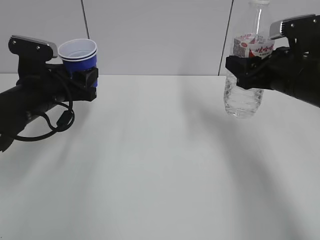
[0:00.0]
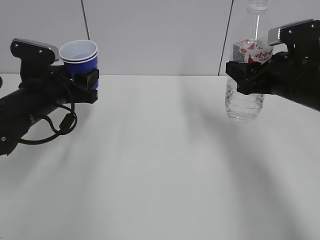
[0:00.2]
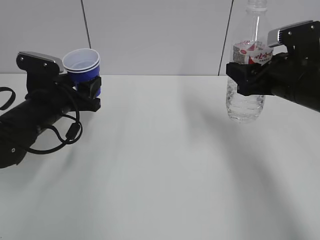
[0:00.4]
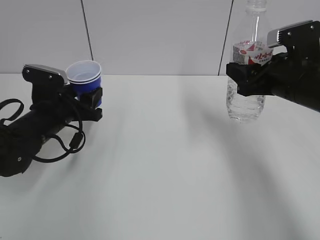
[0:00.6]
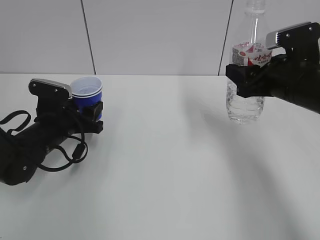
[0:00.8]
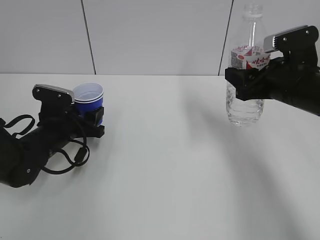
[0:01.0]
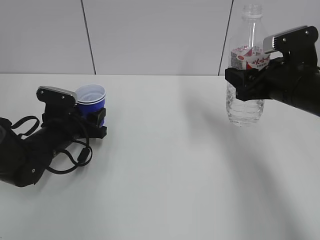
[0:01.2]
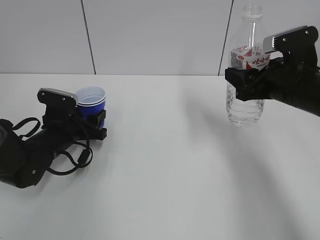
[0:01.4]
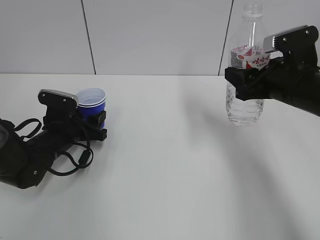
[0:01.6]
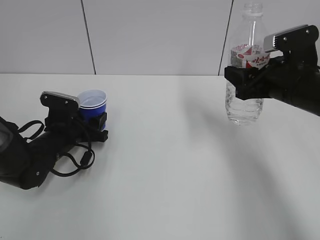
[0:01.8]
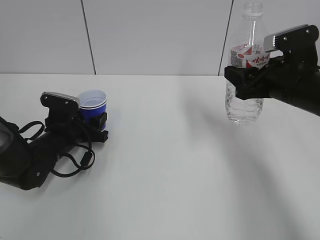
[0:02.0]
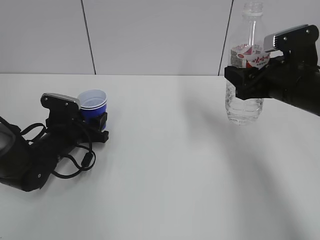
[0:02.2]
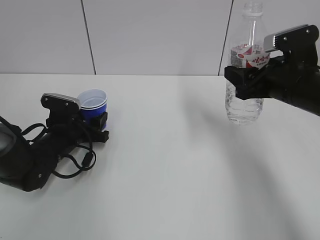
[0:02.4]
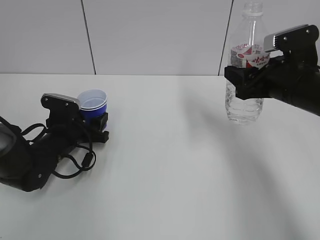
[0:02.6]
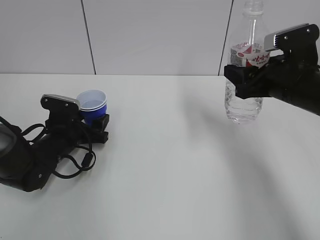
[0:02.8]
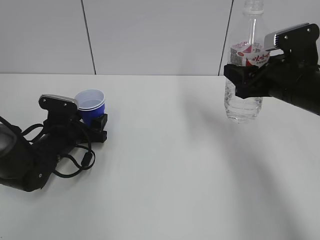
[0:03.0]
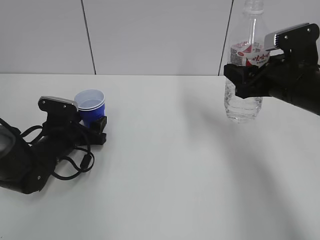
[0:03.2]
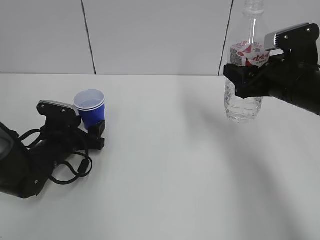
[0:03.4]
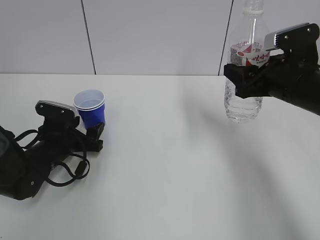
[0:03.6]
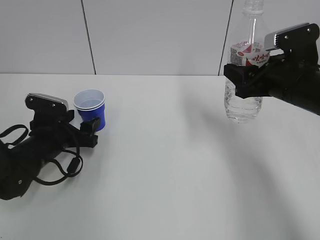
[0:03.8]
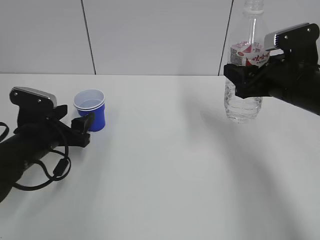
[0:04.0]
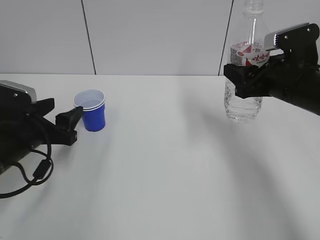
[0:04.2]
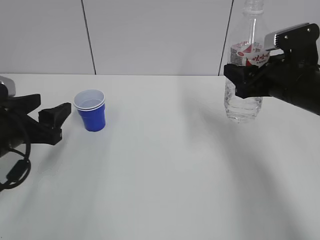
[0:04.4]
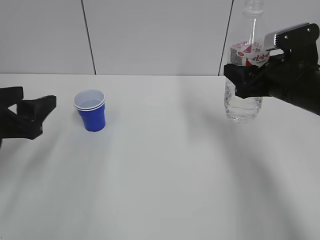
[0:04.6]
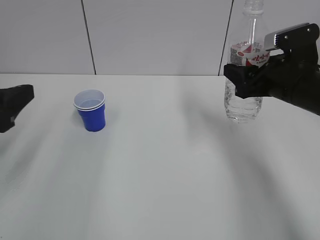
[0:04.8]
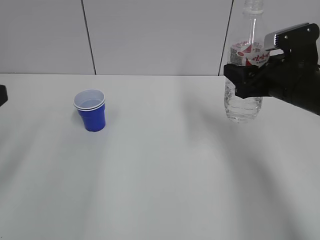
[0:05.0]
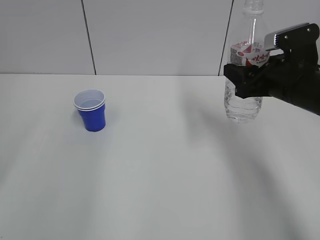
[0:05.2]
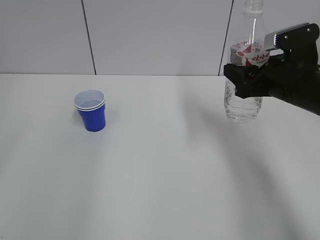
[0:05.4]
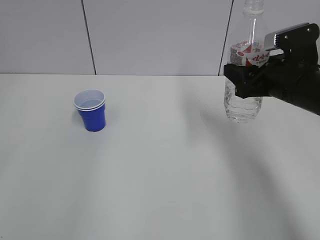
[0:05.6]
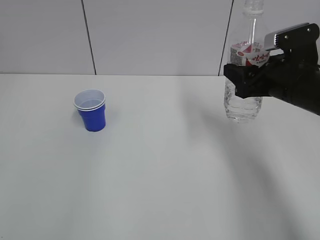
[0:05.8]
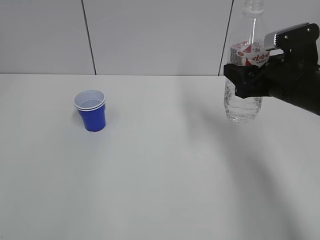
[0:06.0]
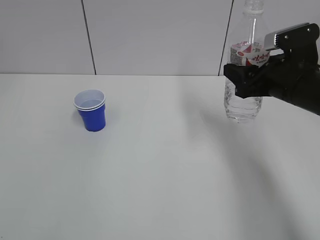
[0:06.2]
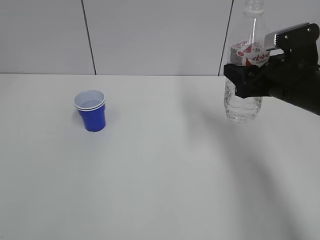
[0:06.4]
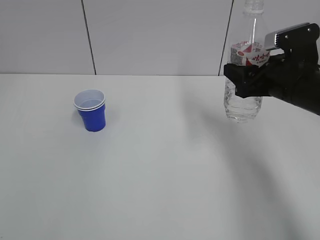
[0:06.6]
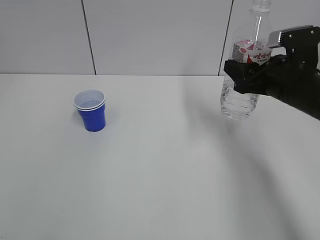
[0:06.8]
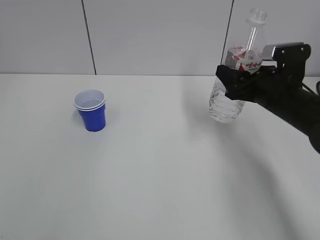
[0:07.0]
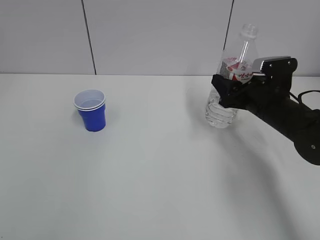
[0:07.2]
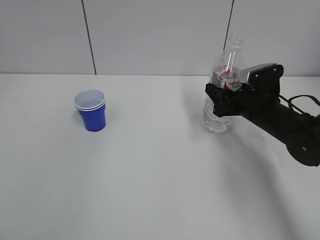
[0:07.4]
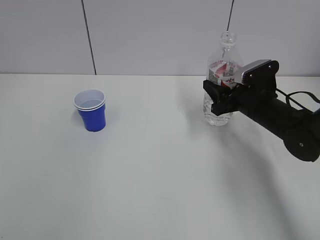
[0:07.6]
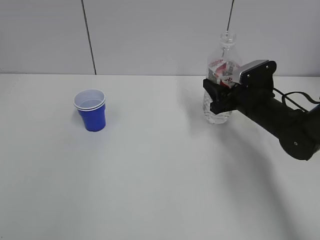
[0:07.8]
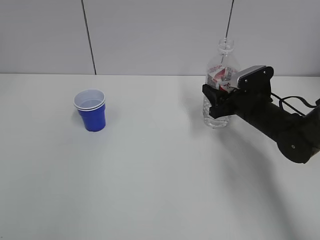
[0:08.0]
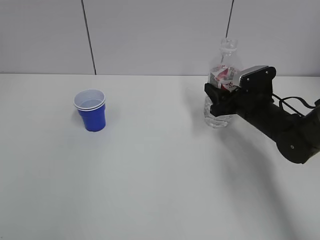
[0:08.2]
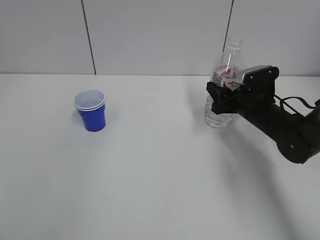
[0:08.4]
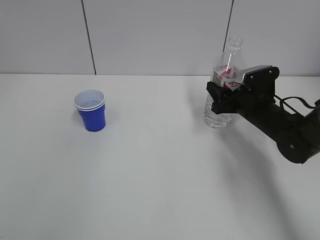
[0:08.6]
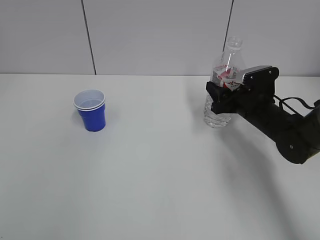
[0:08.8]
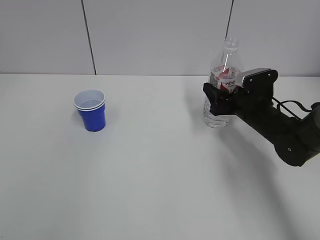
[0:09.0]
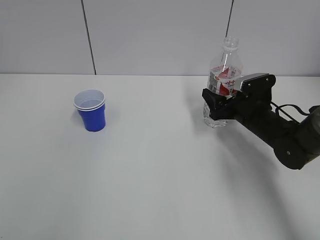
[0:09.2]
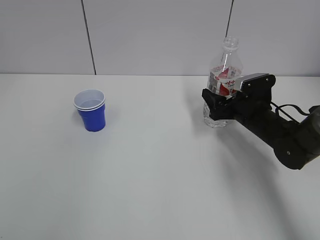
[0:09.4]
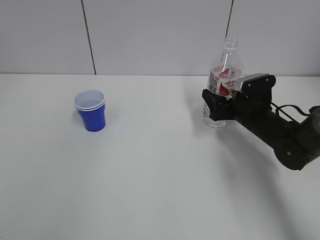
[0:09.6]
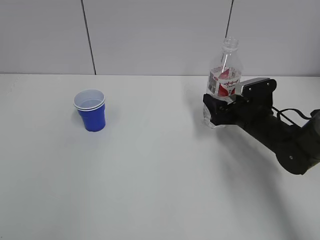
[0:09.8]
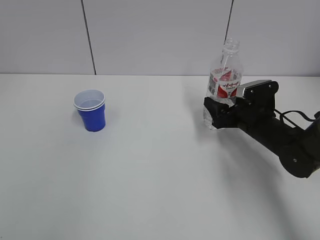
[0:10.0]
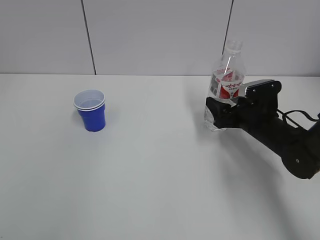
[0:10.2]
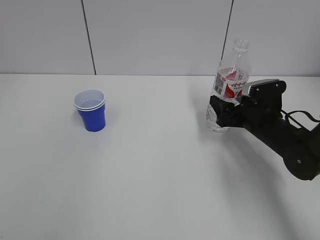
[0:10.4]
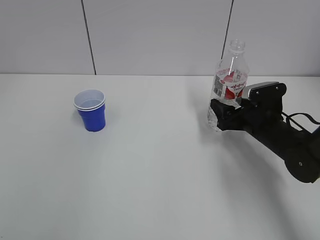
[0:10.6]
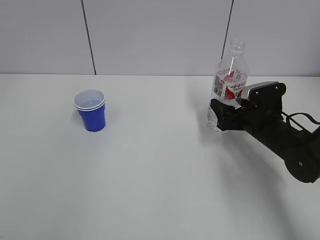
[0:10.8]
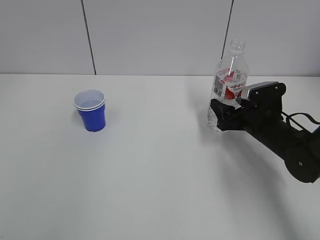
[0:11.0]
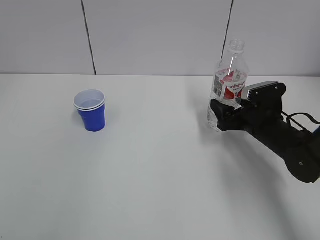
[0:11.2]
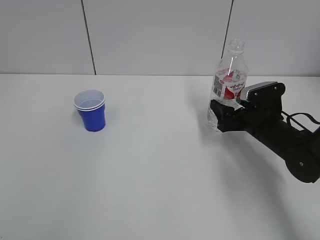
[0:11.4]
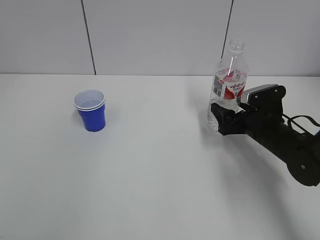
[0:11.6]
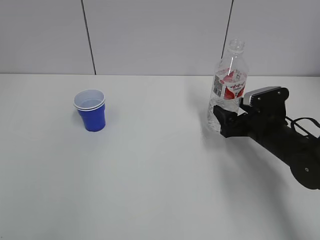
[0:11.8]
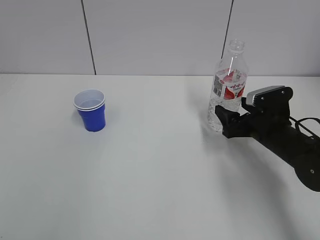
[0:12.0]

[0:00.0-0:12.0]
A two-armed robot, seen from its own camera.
Step, 0:00.0 to 0:03.0: Place the paper cup with the left hand.
Step, 0:03.2 to 0:11.4: Place the water bottle with the right hand.
0:00.0 to 0:01.6: The left gripper goes some 10 cm downward.
0:01.6 to 0:03.0: The left gripper opens.
0:03.0 to 0:04.4: The left gripper travels upward and backward by some 15 cm.
0:04.4 to 0:06.0: The left gripper heads backward and upward, covering roughly 25 cm.
0:06.0 to 0:07.6: The right gripper heads downward and forward, covering some 10 cm.
0:07.6 to 0:09.0: The right gripper opens up.
0:09.0 to 0:12.0: The grippers make only small movements.

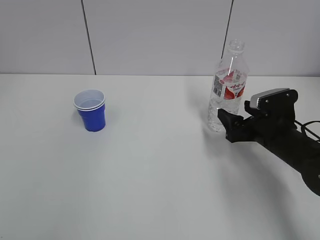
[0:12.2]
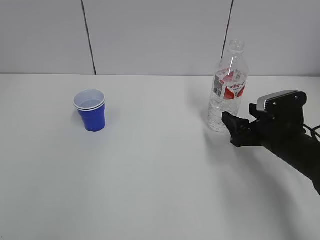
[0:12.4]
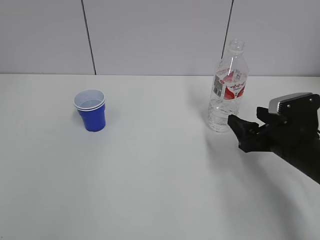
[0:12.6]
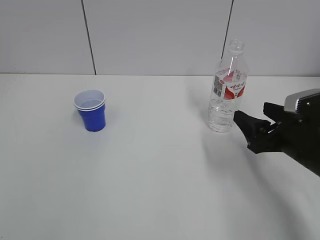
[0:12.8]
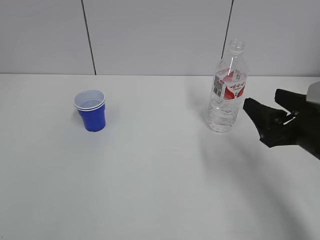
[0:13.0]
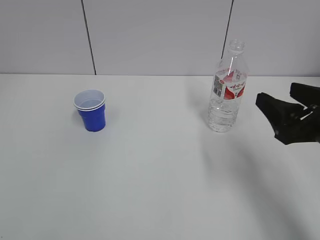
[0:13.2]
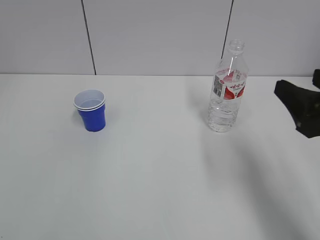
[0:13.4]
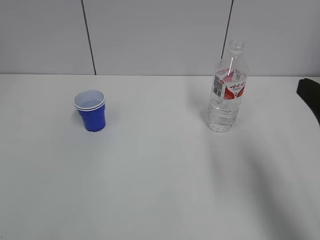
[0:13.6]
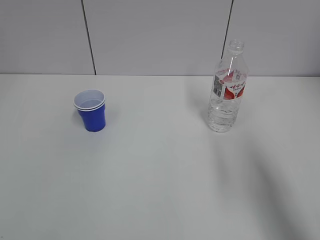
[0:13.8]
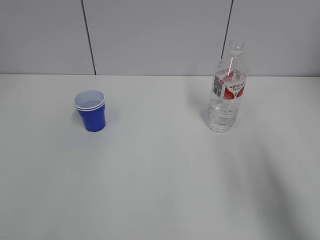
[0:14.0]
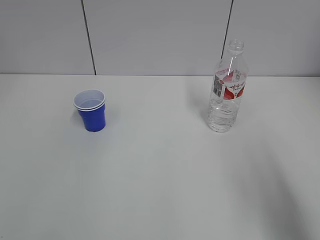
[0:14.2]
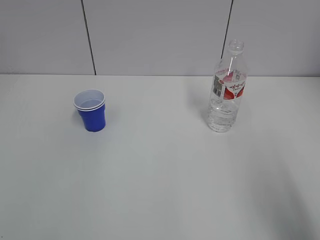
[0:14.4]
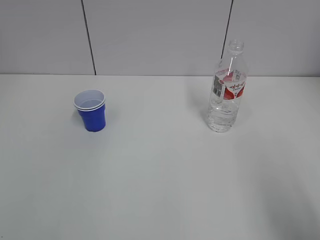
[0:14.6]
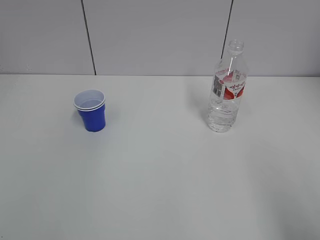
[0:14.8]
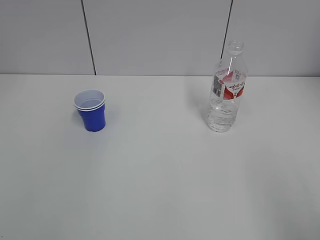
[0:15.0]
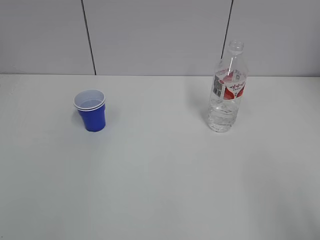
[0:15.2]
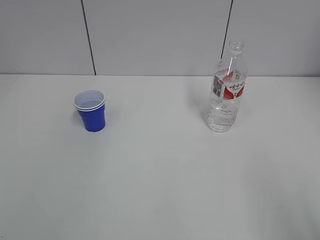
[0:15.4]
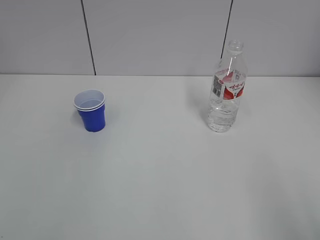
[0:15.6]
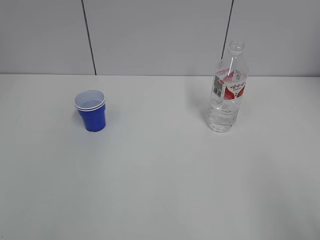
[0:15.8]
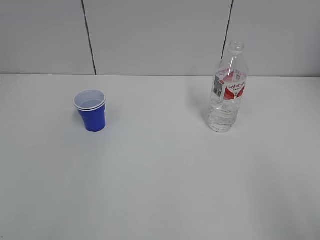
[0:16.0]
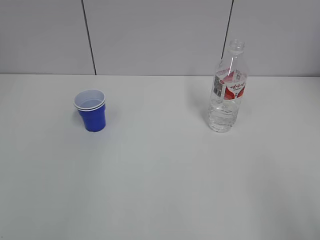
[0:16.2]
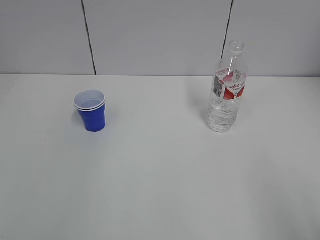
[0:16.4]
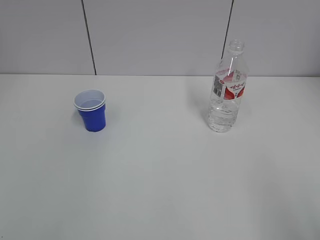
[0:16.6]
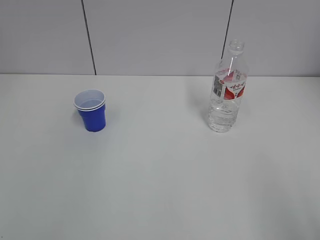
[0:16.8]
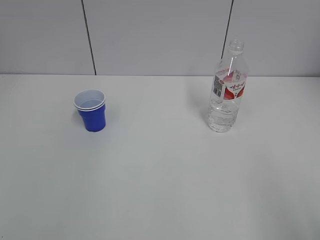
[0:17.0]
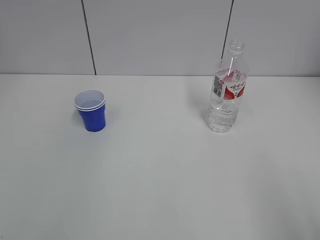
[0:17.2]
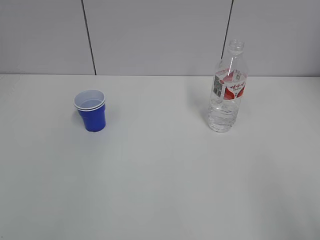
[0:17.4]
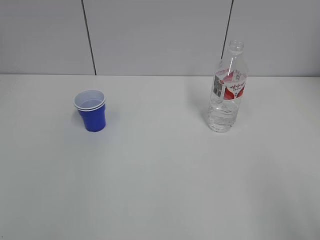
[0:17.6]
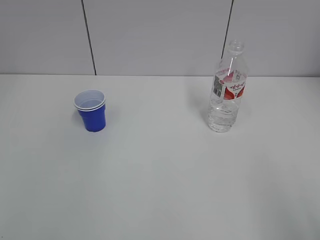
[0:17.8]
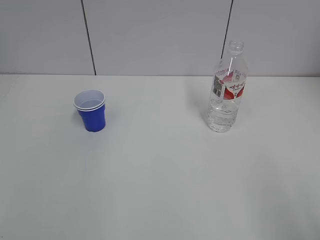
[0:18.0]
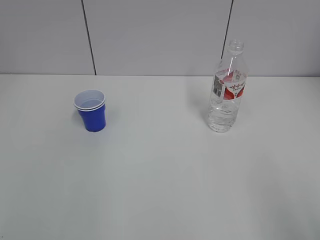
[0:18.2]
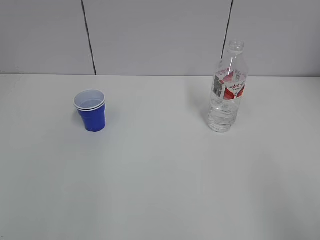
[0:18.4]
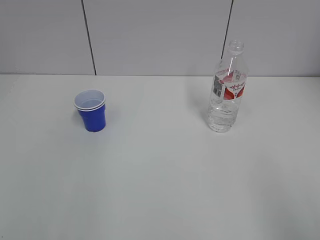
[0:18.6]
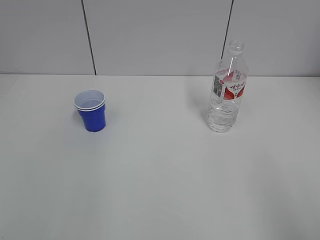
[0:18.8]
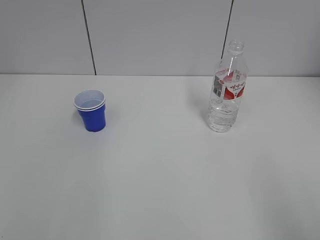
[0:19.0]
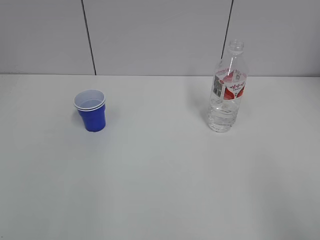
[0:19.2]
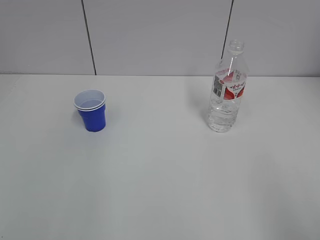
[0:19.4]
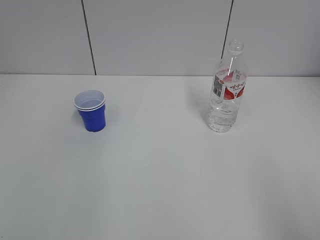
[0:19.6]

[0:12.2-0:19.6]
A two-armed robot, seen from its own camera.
0:12.2 to 0:13.6: The right gripper shifts about 25 cm upward and backward.
0:13.6 to 0:15.2: The right gripper travels backward by about 20 cm.
0:18.2 to 0:19.6: The two grippers keep their place.

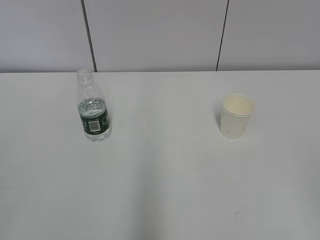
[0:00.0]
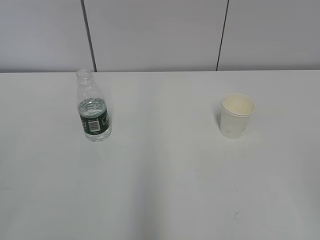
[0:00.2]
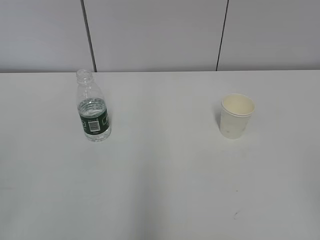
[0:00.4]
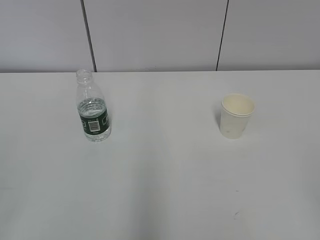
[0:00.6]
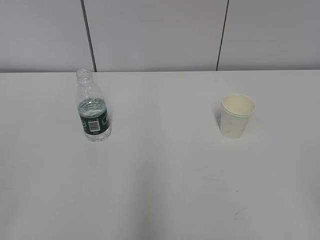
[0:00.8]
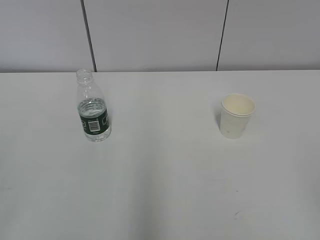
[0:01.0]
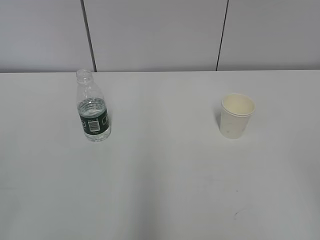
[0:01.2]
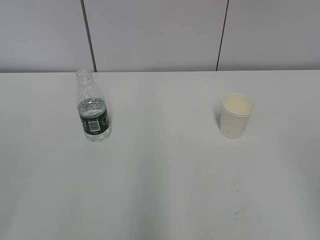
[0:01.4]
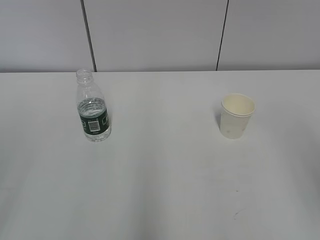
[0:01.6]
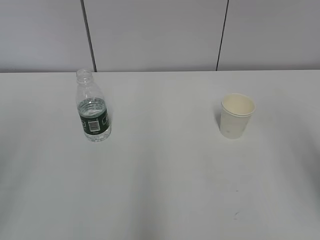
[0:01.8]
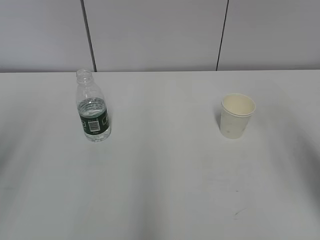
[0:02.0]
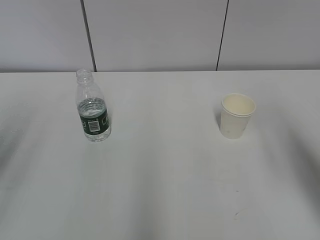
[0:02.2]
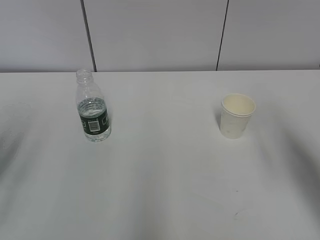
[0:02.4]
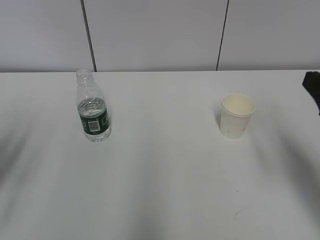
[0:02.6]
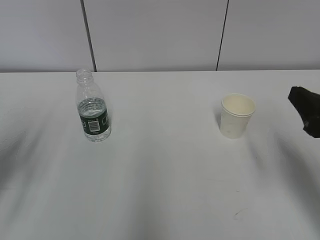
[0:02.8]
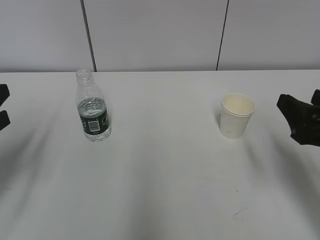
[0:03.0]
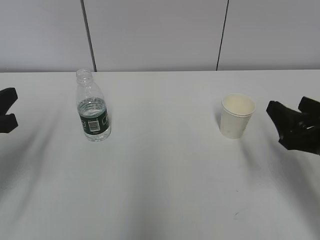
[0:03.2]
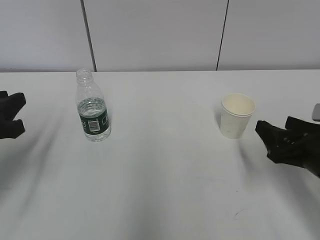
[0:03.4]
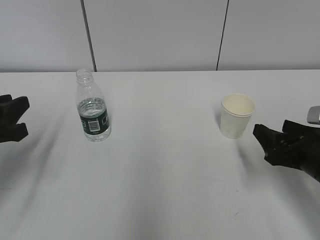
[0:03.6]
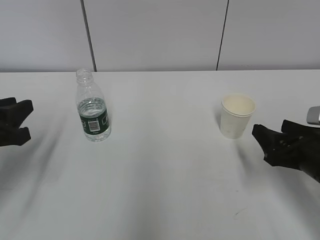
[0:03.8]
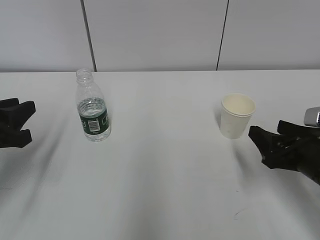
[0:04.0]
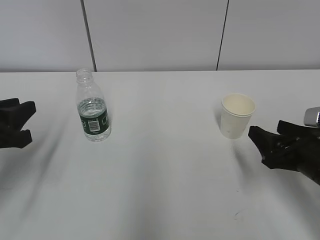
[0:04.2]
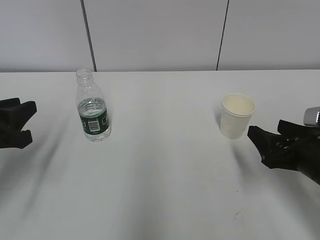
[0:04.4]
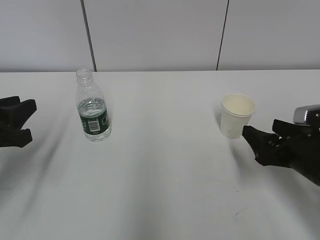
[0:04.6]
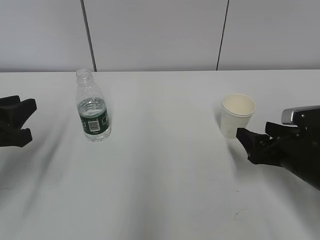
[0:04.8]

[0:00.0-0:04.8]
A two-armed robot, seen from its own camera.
0:01.6 to 0:03.2: The left gripper heads forward and downward, covering roughly 25 cm; the right gripper goes roughly 25 cm downward and forward.
0:03.2 to 0:04.8: The right gripper heads downward, covering some 5 cm, and opens.
